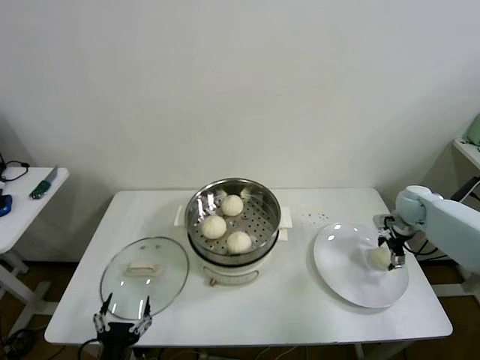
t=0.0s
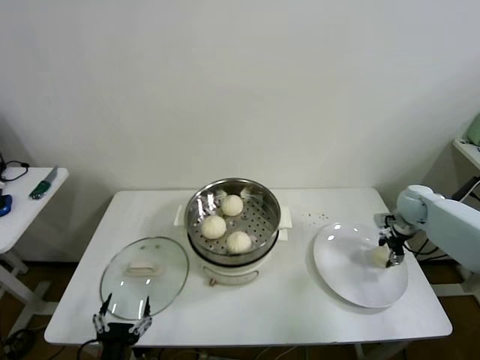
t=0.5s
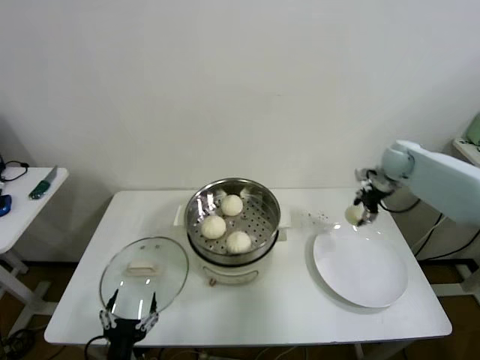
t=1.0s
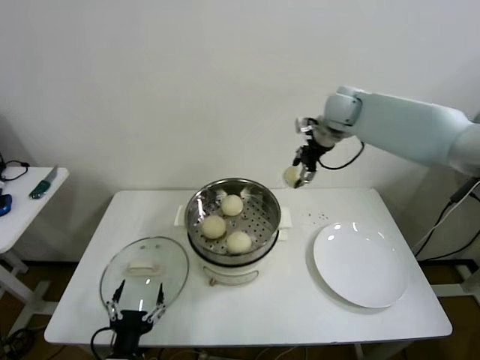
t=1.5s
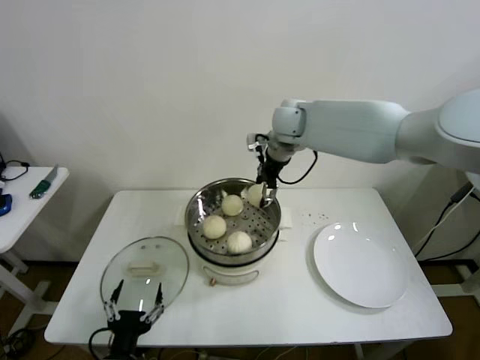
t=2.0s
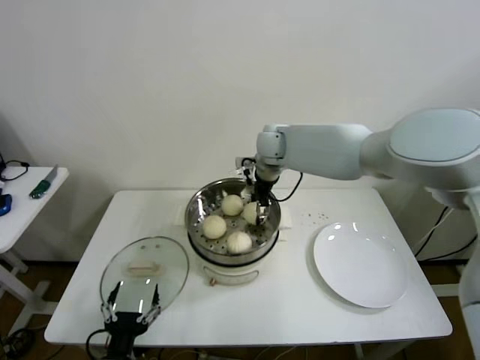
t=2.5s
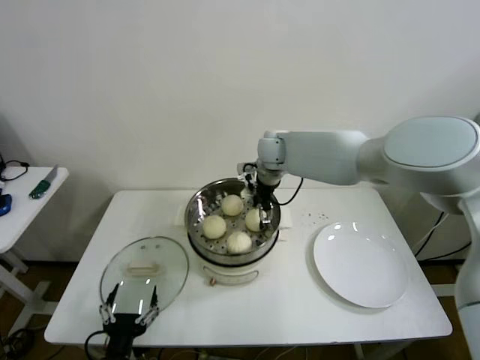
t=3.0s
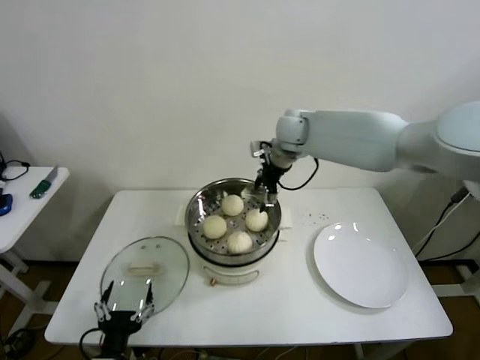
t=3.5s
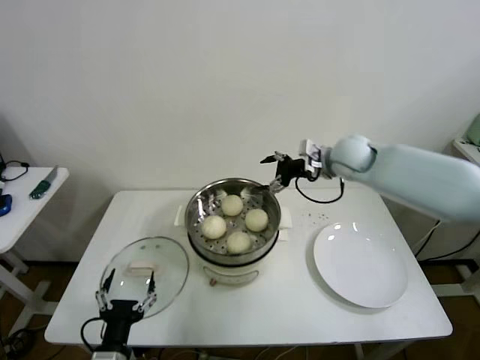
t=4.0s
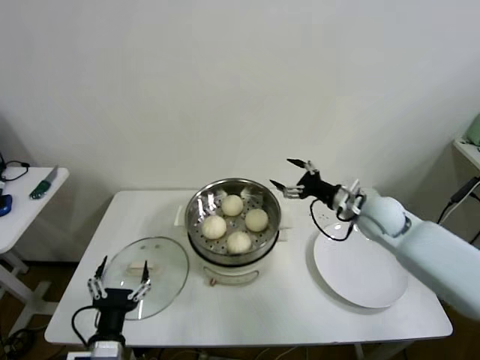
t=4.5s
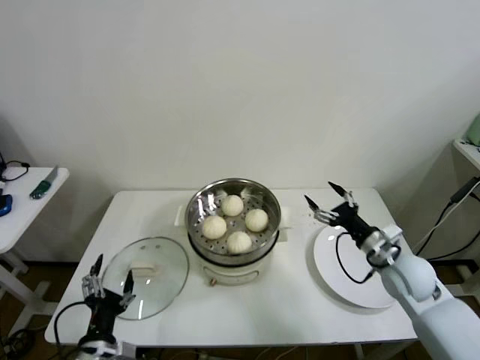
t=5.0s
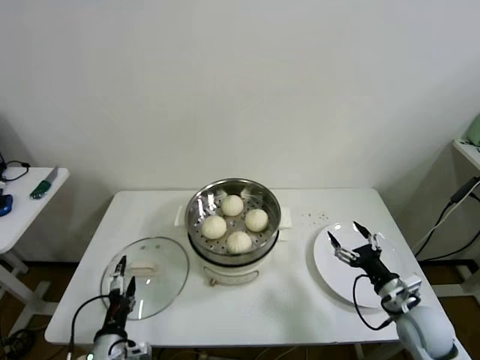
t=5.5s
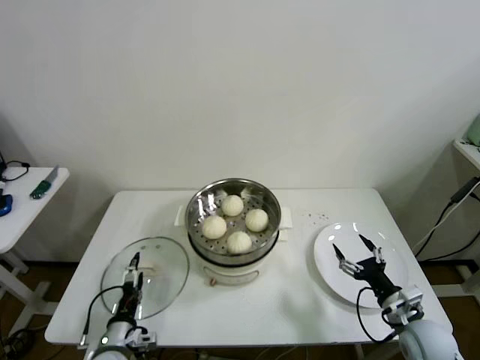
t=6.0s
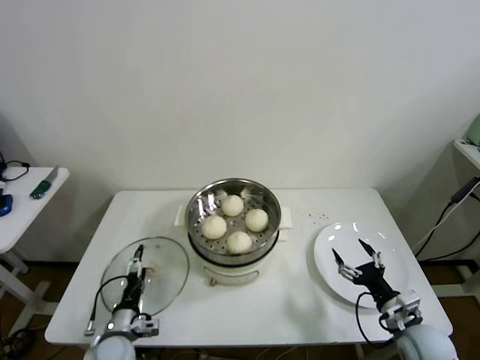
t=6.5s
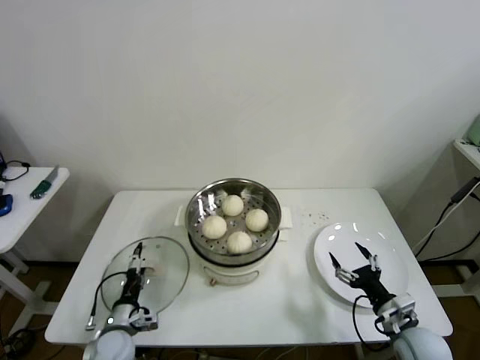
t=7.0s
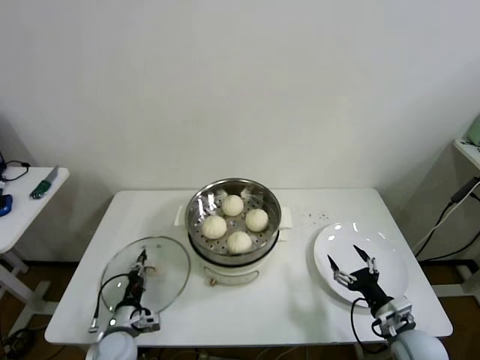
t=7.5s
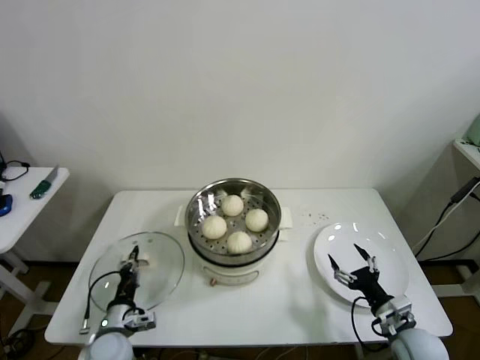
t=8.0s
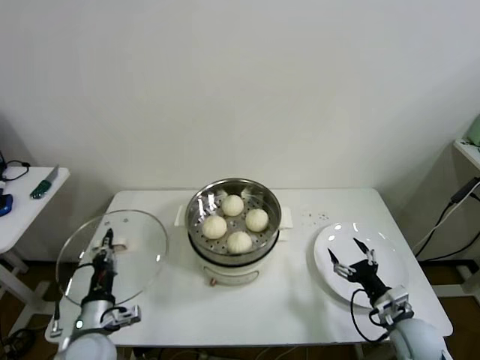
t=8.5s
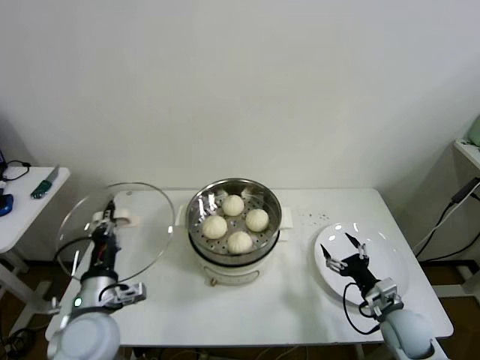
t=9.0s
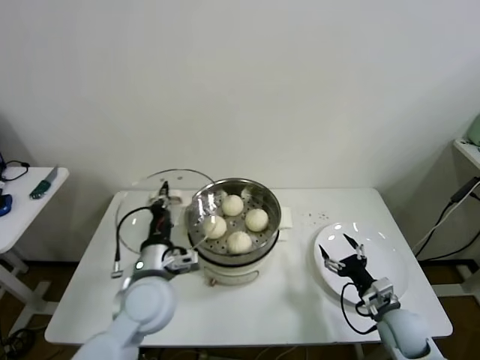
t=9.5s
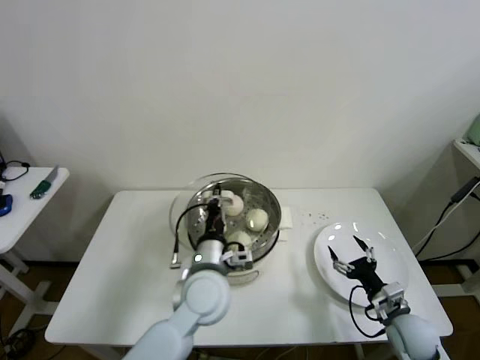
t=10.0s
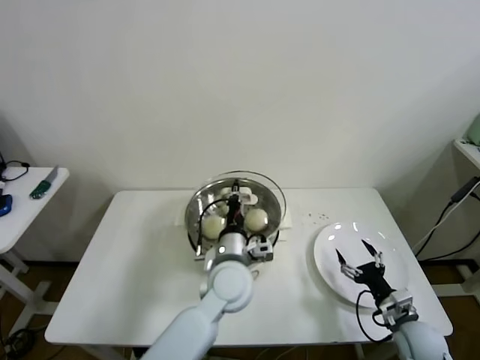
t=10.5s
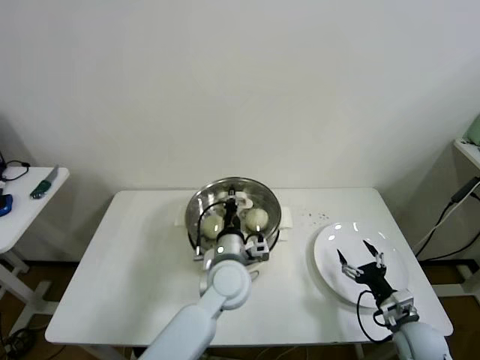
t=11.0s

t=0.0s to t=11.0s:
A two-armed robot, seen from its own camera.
Step, t=0.5s to t=2.5s: Place the baozi on the steamer with right gripper.
Step, t=3.0s to t=7.5s: Grasp the pot lid with left gripper.
t=0.0s to t=2.0s: The right gripper moves to the left and upward, about 40 cm, and closes up.
t=2.0s to t=3.5s: The right gripper opens up.
t=3.5s to t=5.5s: The right gripper moves backward, downward and to the right, approximately 50 cm. Meanwhile the left gripper moves roughly 5 cm.
t=5.5s to t=7.5s: The right gripper moves downward, about 5 cm, while the left gripper heads forward and downward, covering some 15 cm, and closes its fingers.
t=7.5s to t=9.0s: The left gripper heads upward, covering approximately 20 cm, and closes its fingers.
t=9.0s to t=11.0s: The left gripper is displaced to the right and forward by roughly 30 cm.

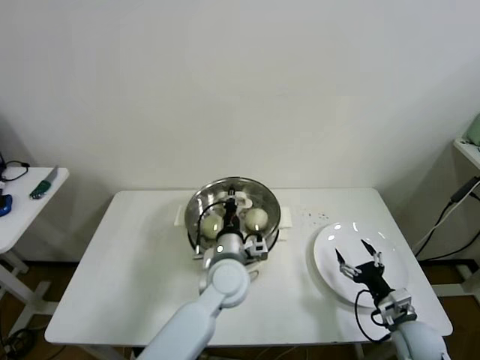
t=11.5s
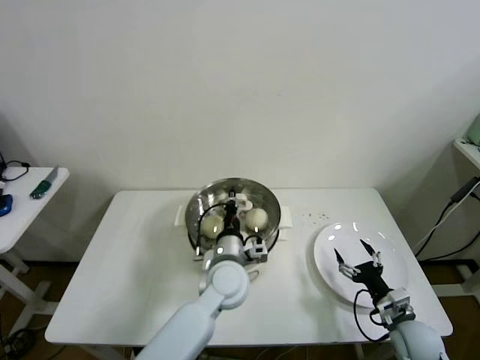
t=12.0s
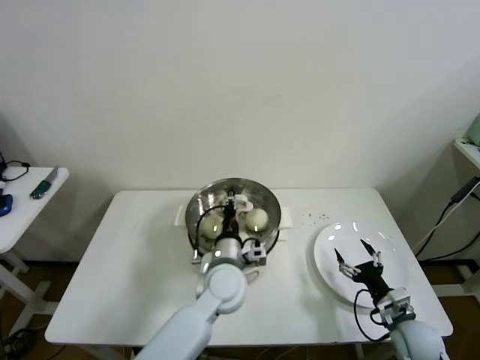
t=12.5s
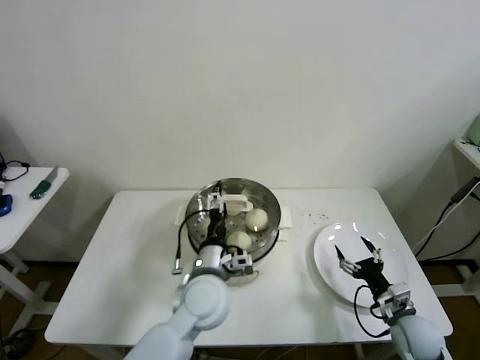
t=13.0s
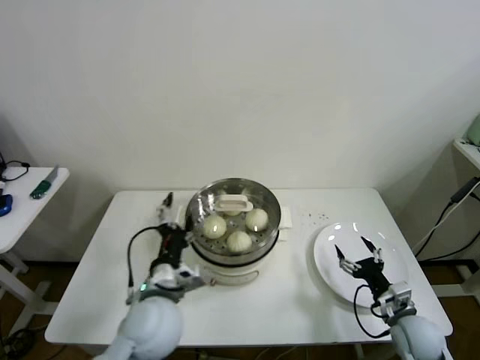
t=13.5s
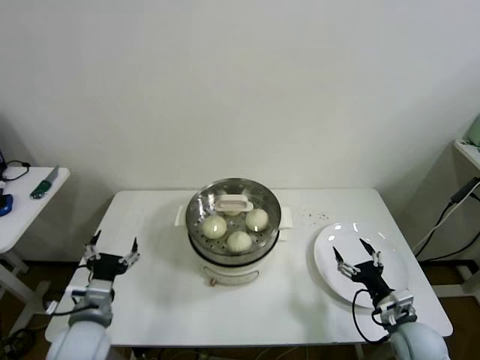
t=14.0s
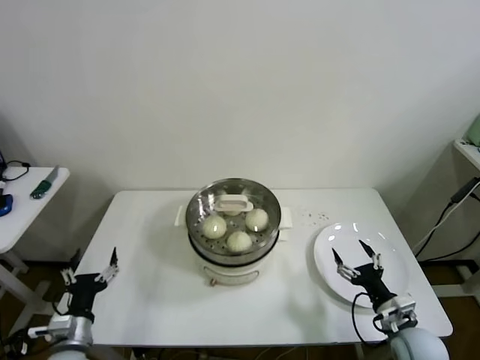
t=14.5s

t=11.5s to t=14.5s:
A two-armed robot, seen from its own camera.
t=11.5s to t=13.0s: The left gripper shifts by about 5 cm, and opens up.
t=13.0s to t=14.5s: The left gripper is displaced to the left and backward by some 30 cm.

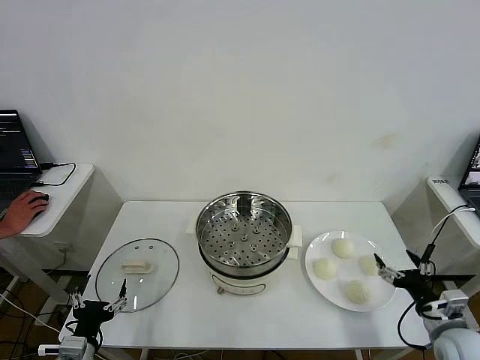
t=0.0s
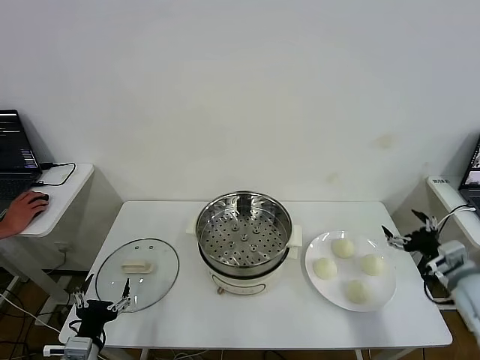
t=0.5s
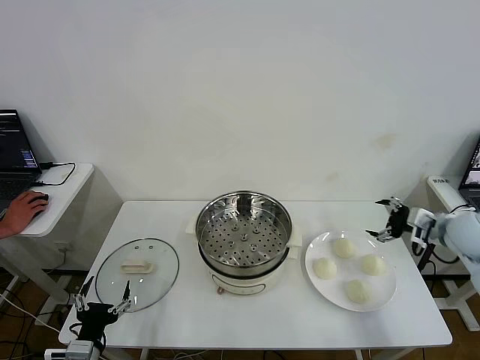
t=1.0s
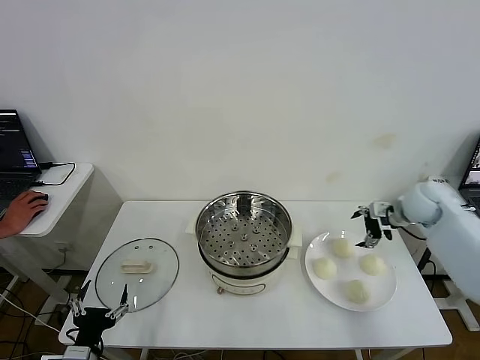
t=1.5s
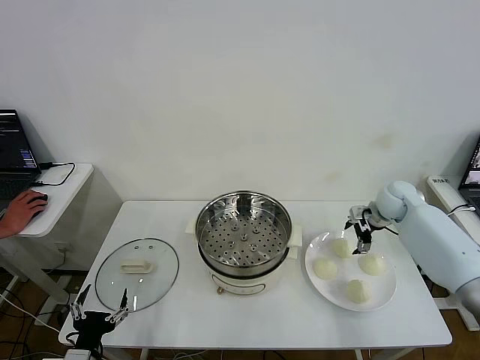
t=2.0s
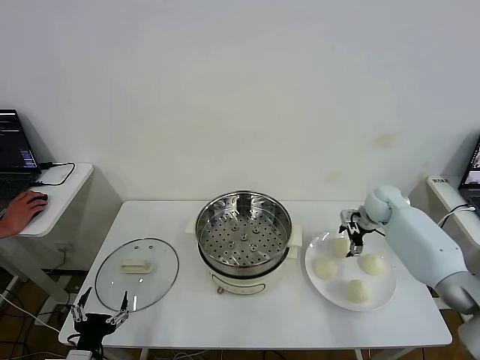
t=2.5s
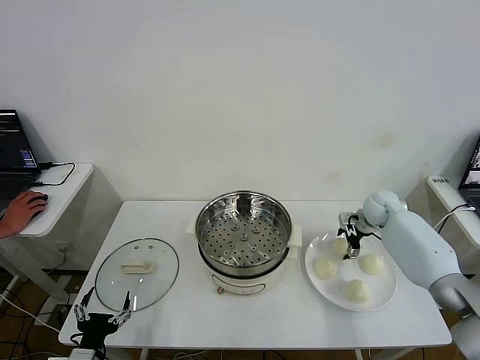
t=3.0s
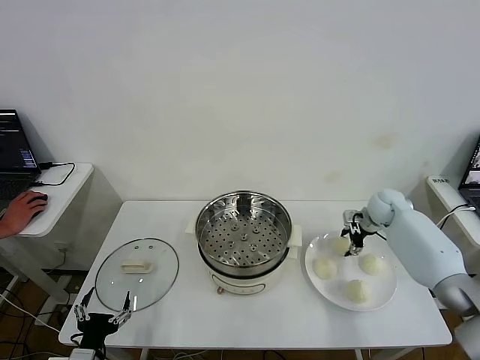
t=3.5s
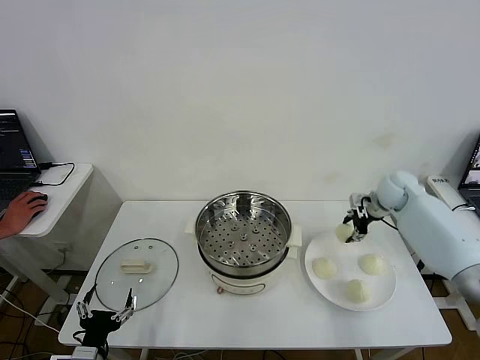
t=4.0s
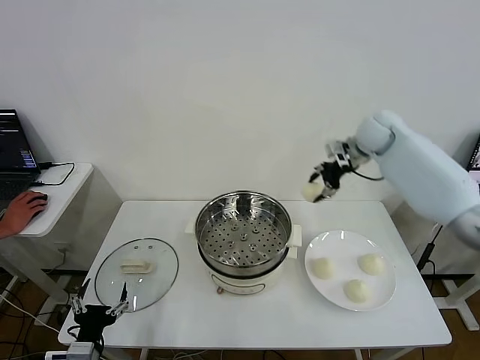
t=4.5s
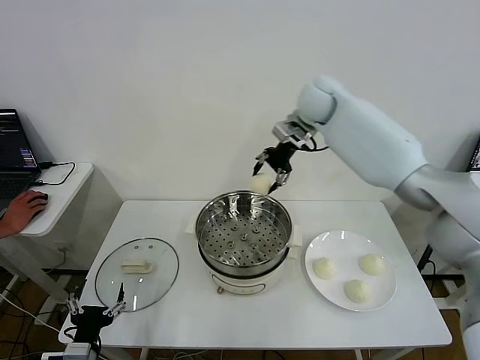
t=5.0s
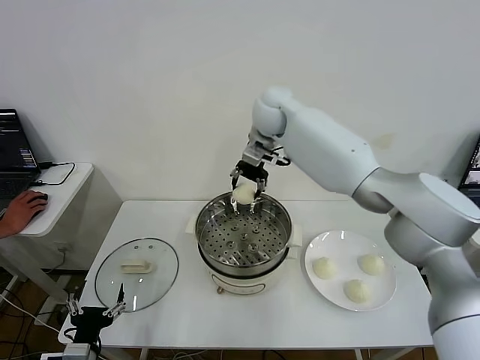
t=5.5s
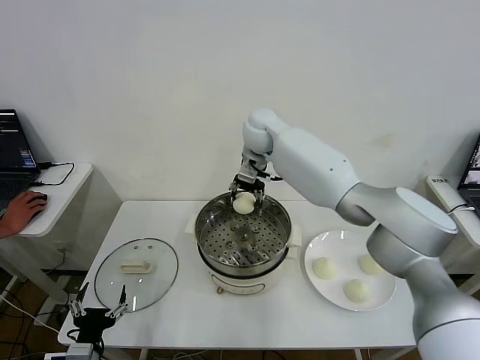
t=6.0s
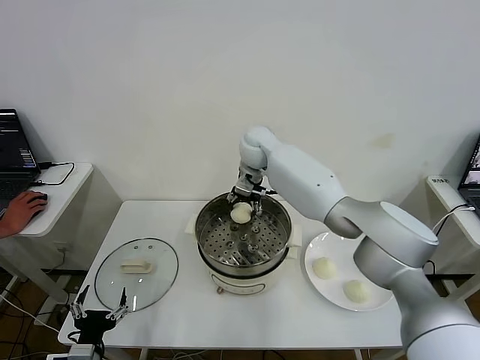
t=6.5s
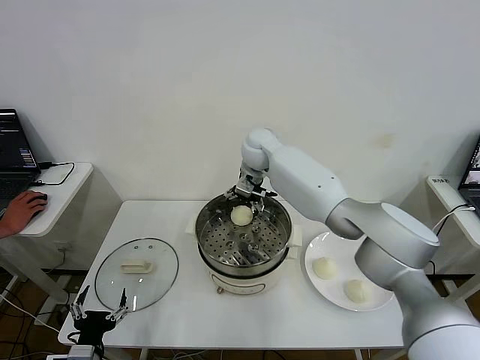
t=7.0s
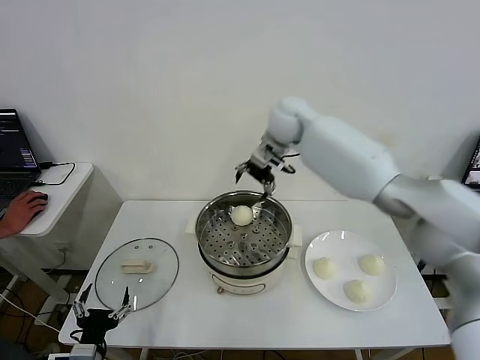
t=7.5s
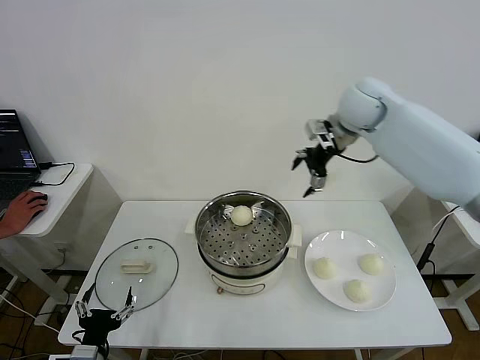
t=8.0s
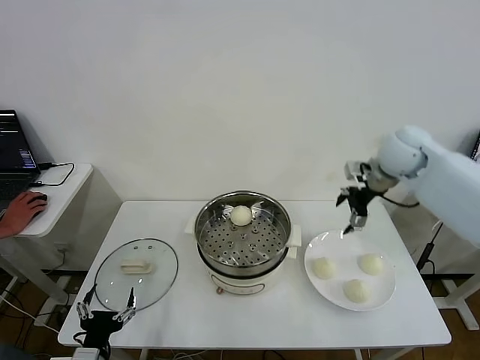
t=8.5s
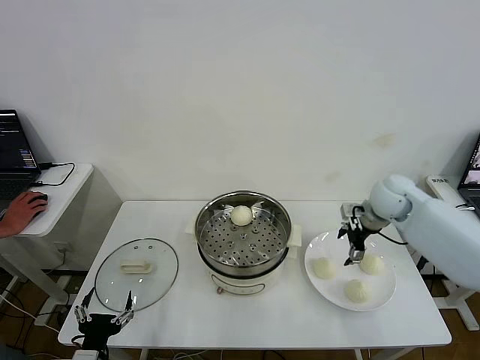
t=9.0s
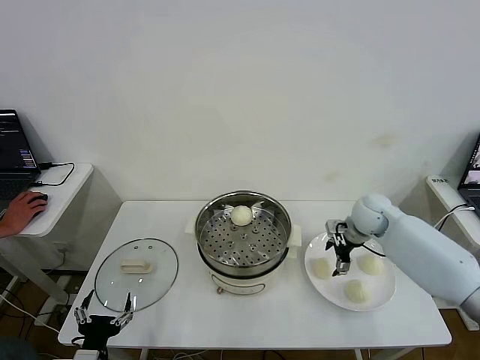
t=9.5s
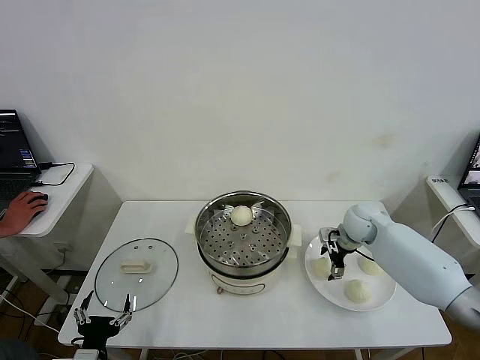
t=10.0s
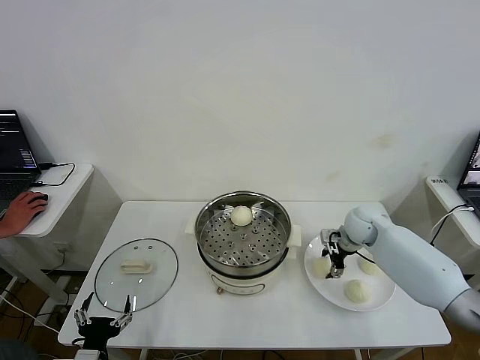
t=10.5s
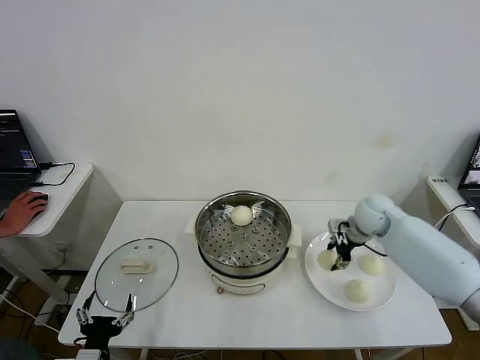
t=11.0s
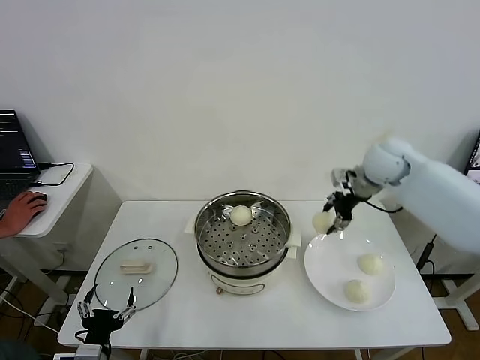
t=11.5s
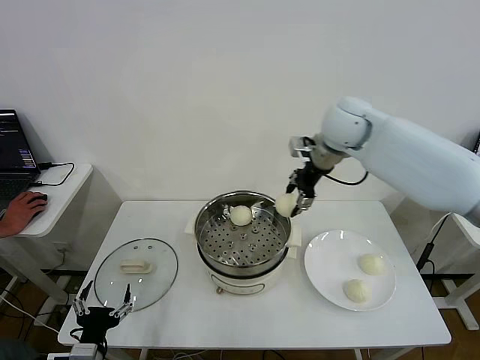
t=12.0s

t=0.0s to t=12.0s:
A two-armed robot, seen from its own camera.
Step, t=0.0s to t=3.0s: Grasp the baozi in the plate with right gripper.
Step, t=3.5s to t=6.5s: Place the baozi on the steamer with right gripper.
Step, t=7.0s to t=10.0s: Grasp the baozi in the plate with right gripper.
t=2.0s to t=4.0s: The right gripper travels upward by roughly 5 cm, and closes its fingers.
t=4.0s to t=6.0s: The right gripper shifts approximately 35 cm to the left.
t=6.0s to t=8.0s: The right gripper goes some 25 cm to the right, and opens.
t=8.0s to t=10.0s: The right gripper travels downward by roughly 30 cm.
t=10.0s to t=12.0s: The right gripper heads upward and to the left, covering some 30 cm, and closes up.
